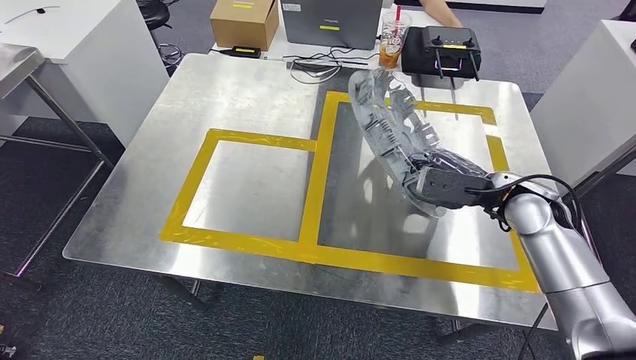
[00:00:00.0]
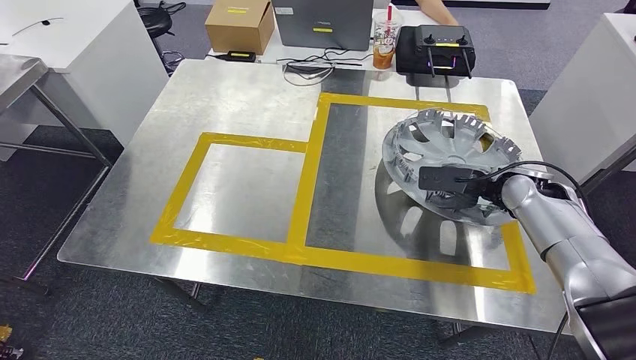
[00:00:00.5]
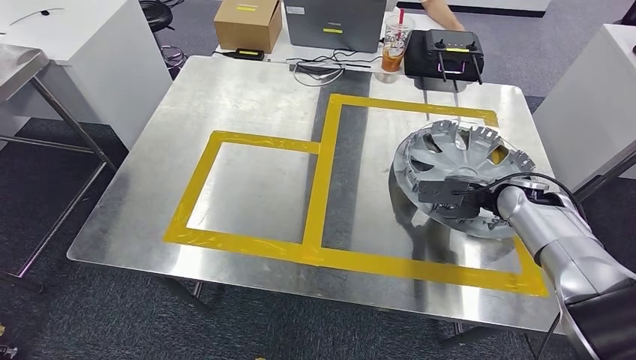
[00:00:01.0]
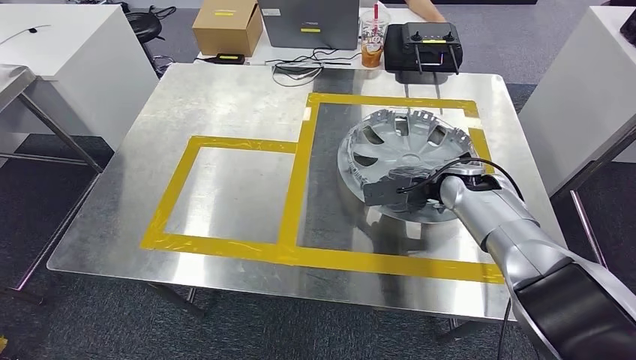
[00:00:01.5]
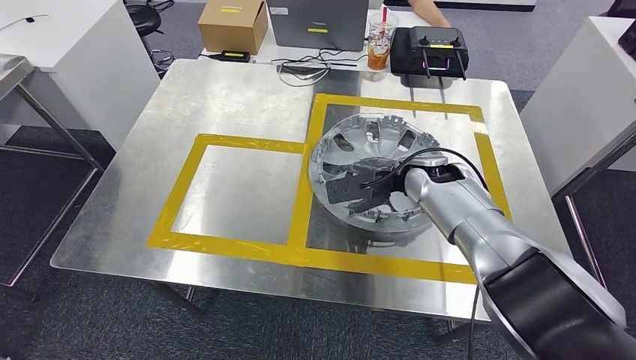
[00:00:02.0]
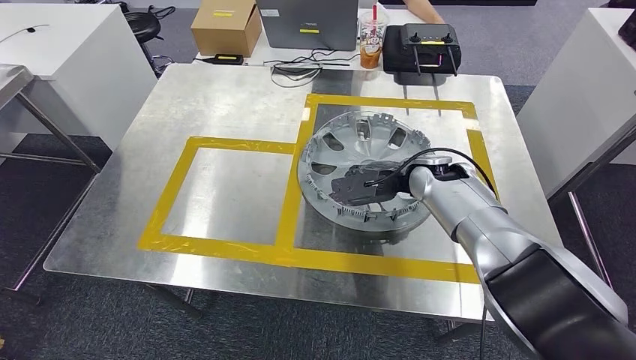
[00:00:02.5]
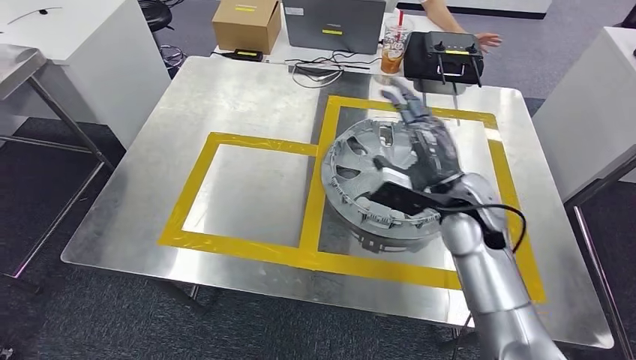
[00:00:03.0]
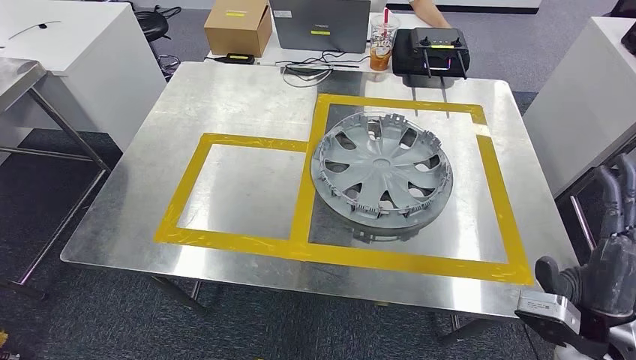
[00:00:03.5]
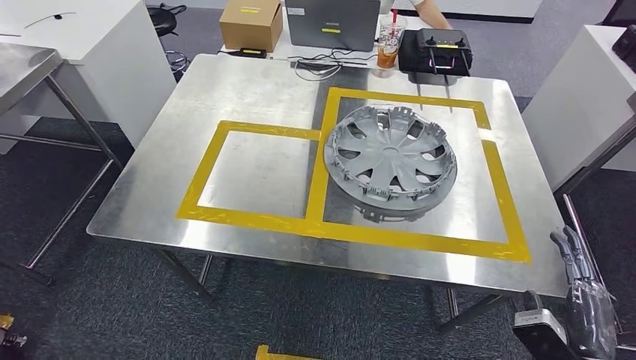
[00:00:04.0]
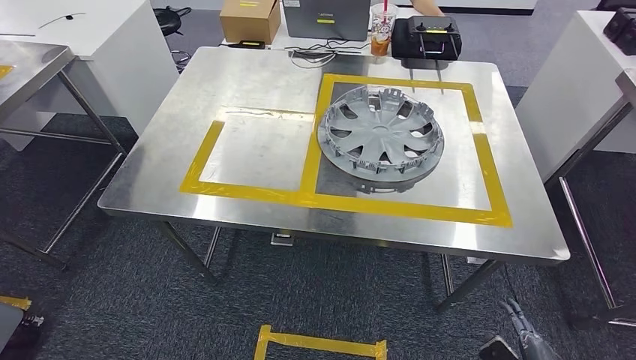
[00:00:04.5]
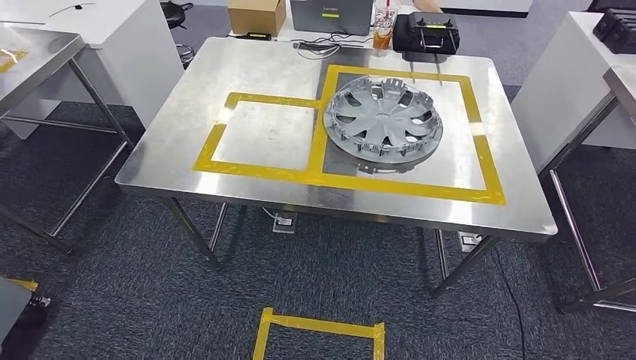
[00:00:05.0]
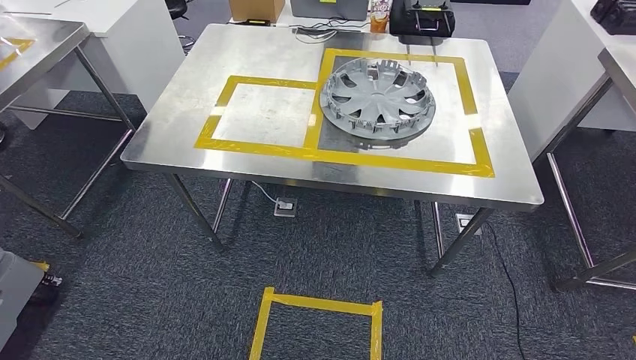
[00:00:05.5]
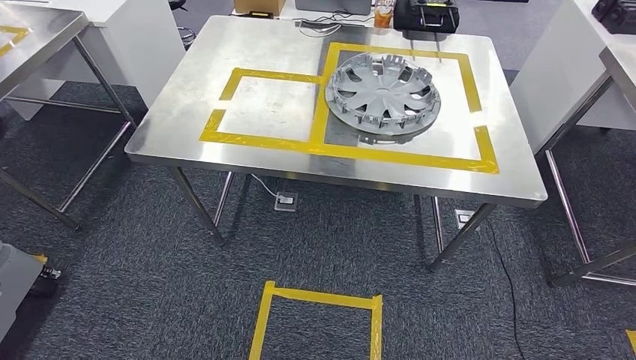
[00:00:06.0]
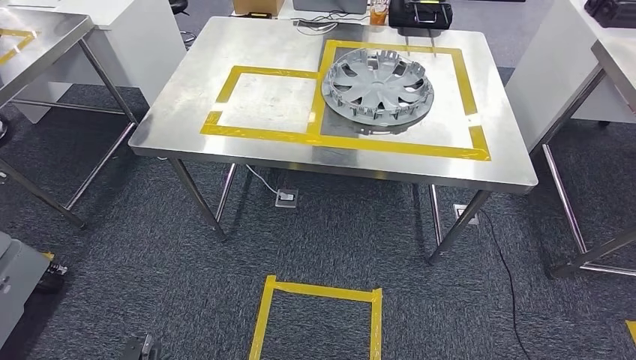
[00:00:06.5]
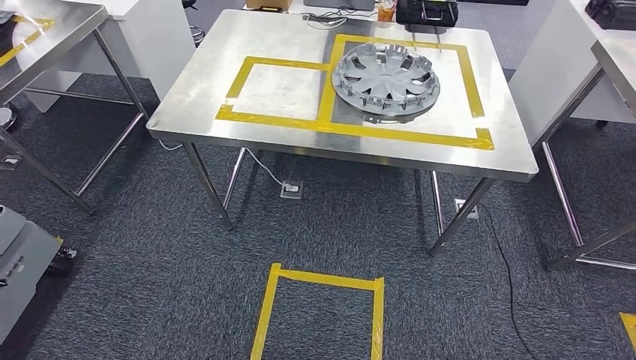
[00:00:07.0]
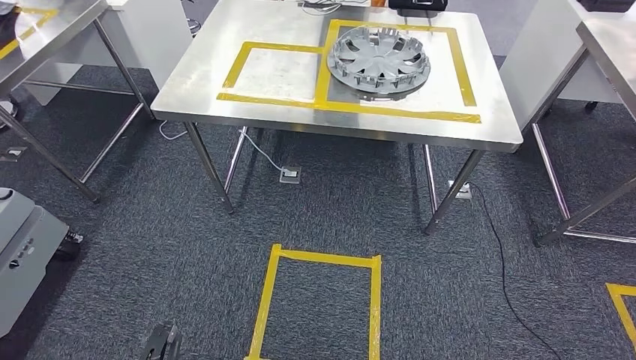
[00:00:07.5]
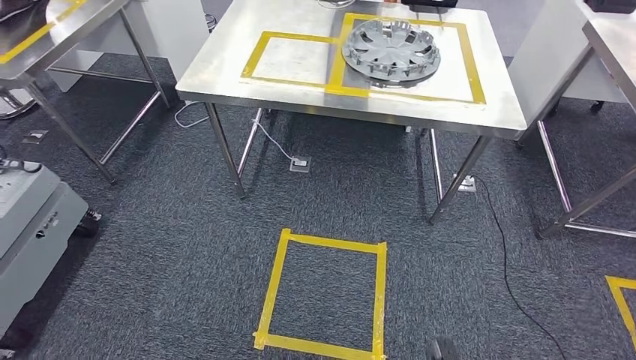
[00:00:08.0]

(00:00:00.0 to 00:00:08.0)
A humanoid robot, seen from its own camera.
Step, 00:00:00.0 - 00:00:03.5: Insert the small parts into the corresponding slots on the workbench.
Step, 00:00:04.0 - 00:00:08.0: Return to the initial position at the workbench.
